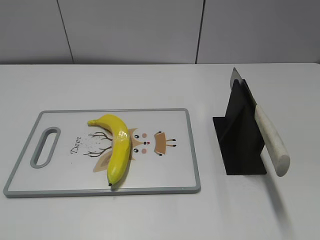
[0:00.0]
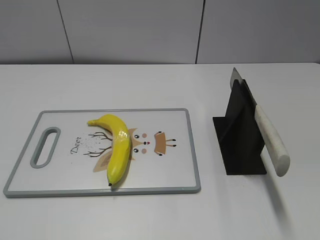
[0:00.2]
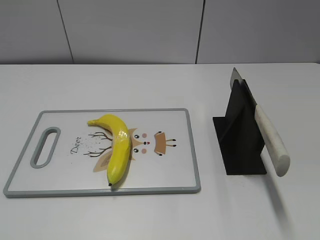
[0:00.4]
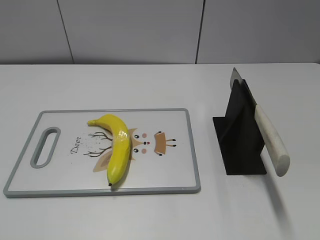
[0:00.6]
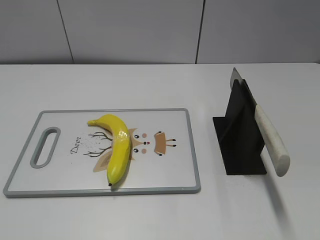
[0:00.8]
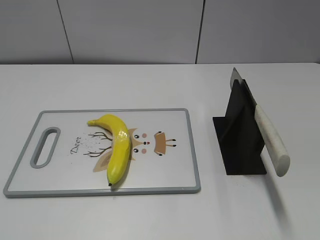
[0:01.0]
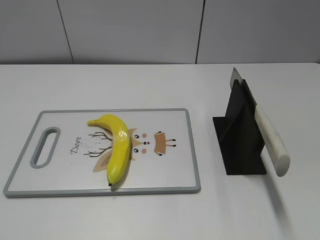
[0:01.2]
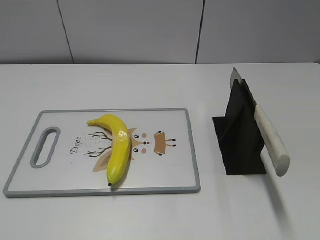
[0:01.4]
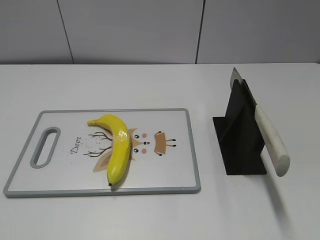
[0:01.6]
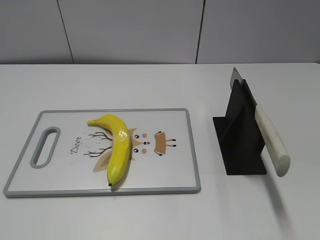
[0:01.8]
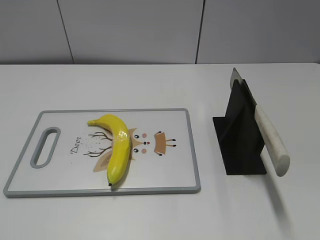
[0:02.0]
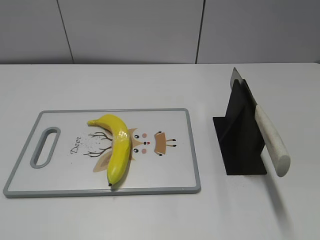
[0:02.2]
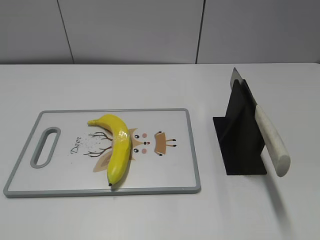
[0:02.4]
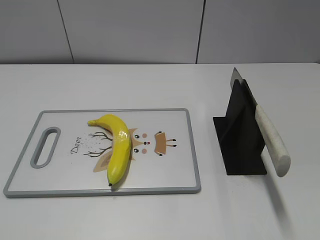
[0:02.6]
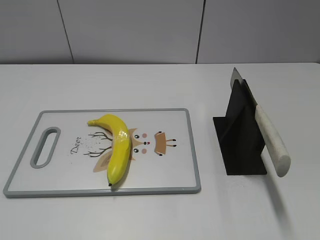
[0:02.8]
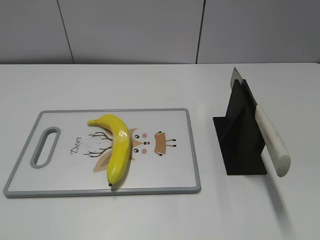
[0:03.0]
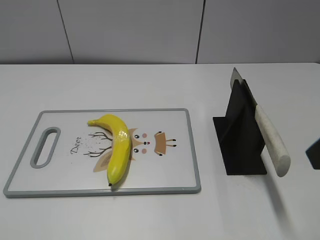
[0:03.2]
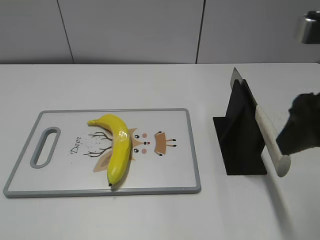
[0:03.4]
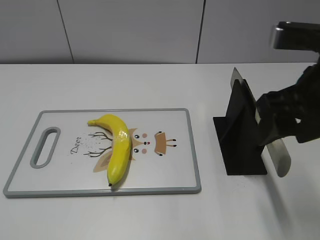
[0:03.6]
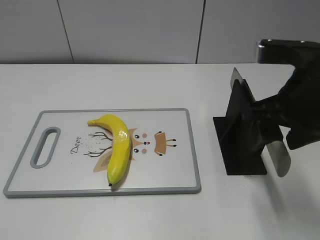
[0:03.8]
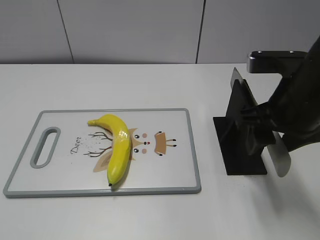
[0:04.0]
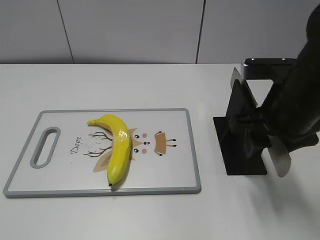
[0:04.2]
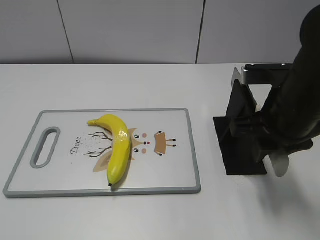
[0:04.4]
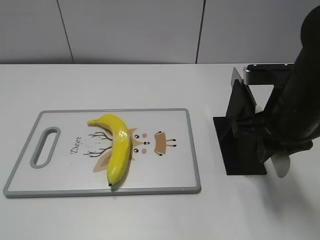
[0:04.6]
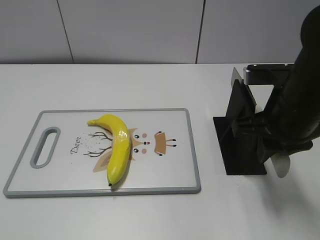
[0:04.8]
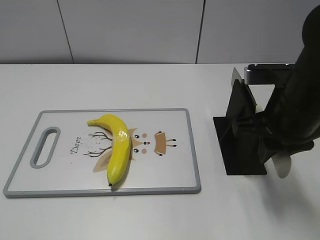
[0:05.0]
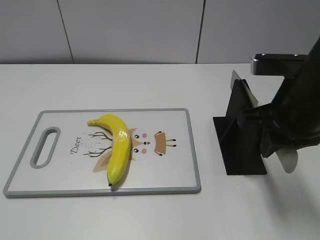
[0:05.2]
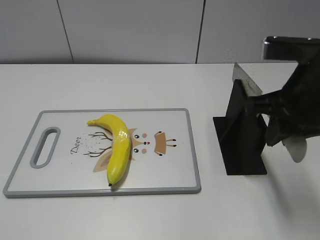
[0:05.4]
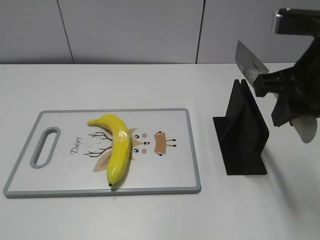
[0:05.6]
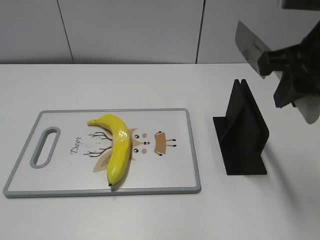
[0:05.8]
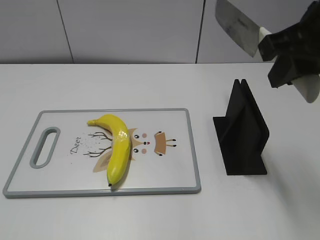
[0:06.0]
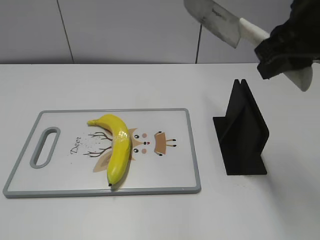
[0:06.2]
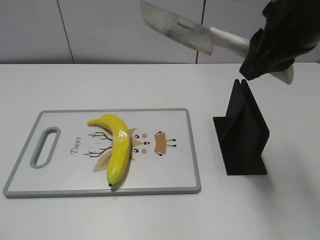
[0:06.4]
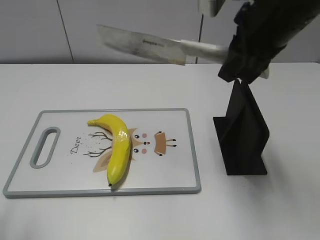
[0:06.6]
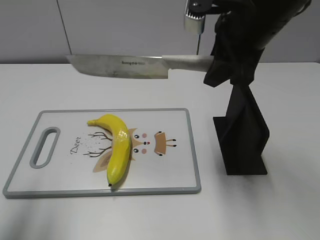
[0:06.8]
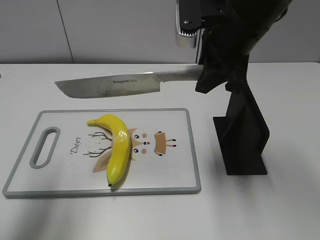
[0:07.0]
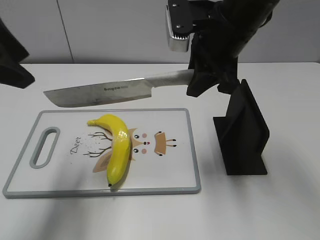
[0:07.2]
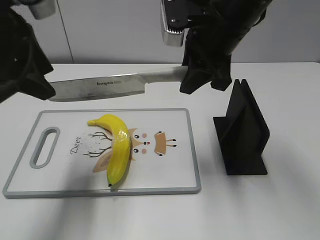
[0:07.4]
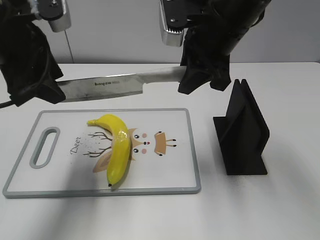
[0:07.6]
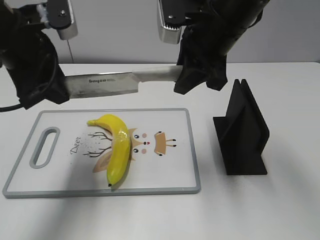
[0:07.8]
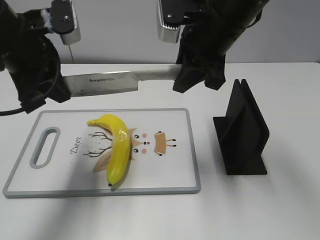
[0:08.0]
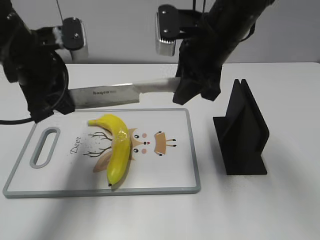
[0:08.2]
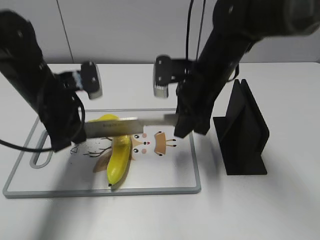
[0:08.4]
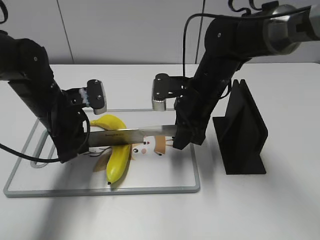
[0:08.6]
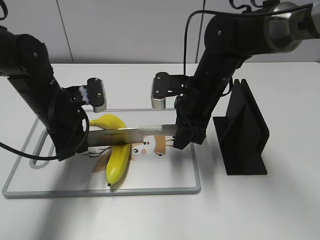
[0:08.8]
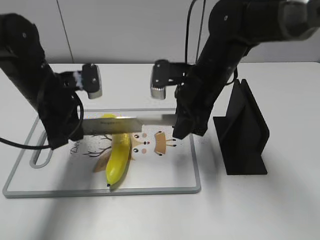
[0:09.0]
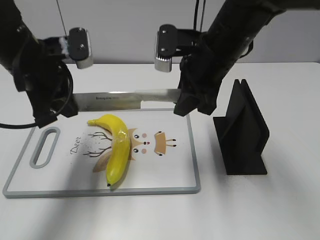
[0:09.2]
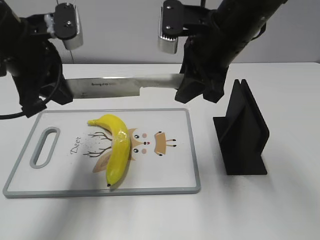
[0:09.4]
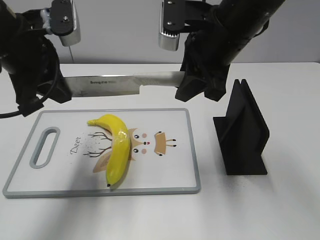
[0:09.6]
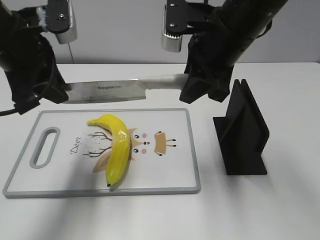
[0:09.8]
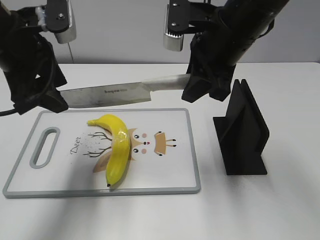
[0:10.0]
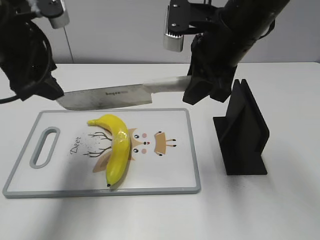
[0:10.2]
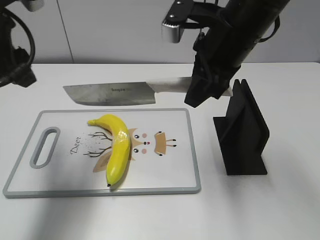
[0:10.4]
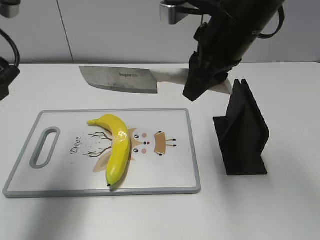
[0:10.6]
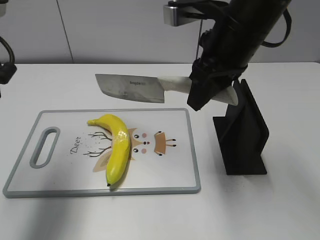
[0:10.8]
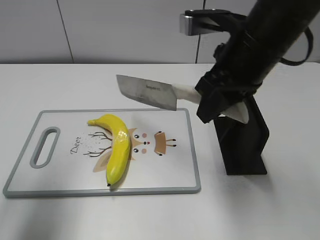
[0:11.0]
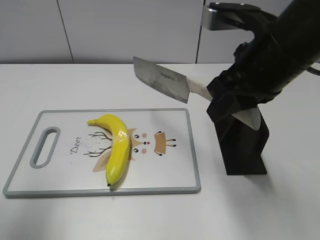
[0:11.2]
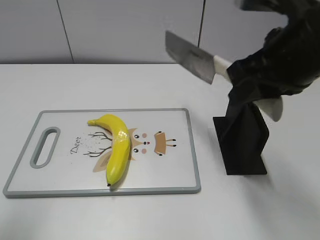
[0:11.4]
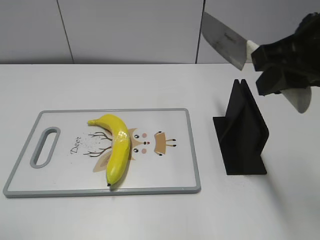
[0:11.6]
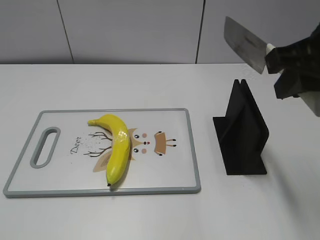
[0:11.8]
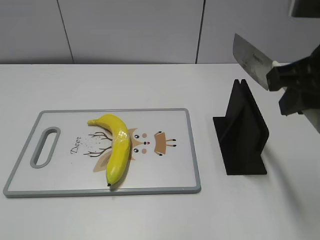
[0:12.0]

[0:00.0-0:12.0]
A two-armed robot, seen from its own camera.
Task of the whole recording: cut plastic banana.
Step, 0:00.0 to 0:06.2: Grab the knife handle with your right hand.
Step, 0:06.4 to 0:09.8: Lift the knife with your right hand.
Step, 0:10.0 to 0:10.8: Cut the banana with your right hand.
0:03.0 to 0:04.4: The right gripper is displaced forward, downward and to the left by about 20 cm, and closes its fingers.
0:04.4 to 0:06.0: The right gripper travels upward by about 10 cm.
0:06.0 to 0:07.6: The right gripper moves forward, to the left and downward, roughly 15 cm; the left gripper heads forward and to the right, covering roughly 30 cm.
0:07.6 to 0:09.0: The grippers both shift downward by roughly 10 cm. The left gripper closes its fingers.
0:09.0 to 0:10.4: Both grippers move upward, some 10 cm. The left gripper opens.
0:10.4 to 0:12.0: The left gripper is displaced backward by some 25 cm. The right gripper shifts about 15 cm backward and to the right.

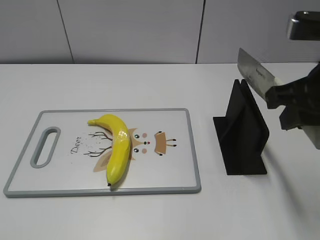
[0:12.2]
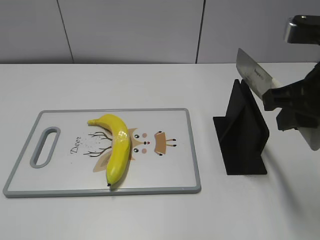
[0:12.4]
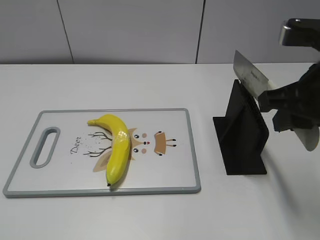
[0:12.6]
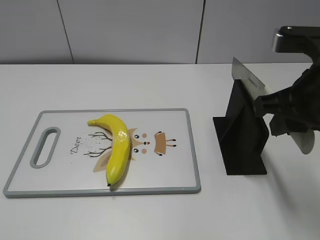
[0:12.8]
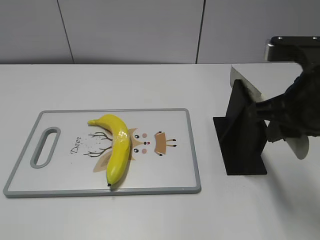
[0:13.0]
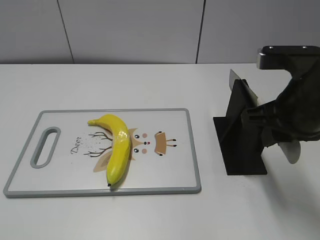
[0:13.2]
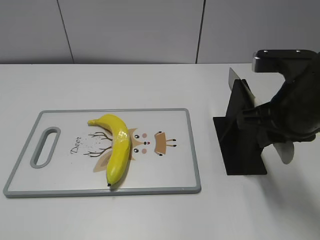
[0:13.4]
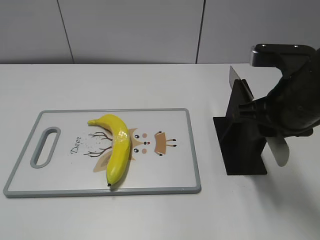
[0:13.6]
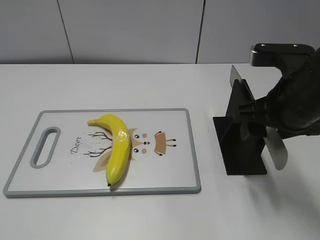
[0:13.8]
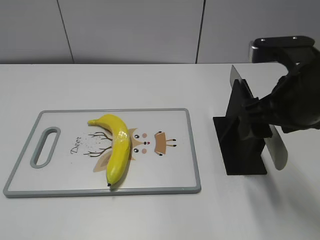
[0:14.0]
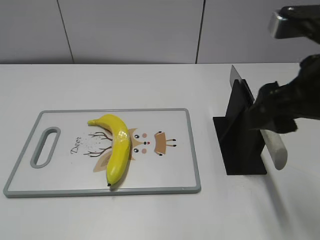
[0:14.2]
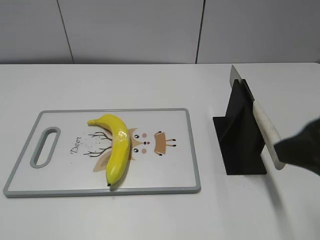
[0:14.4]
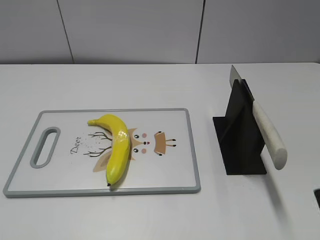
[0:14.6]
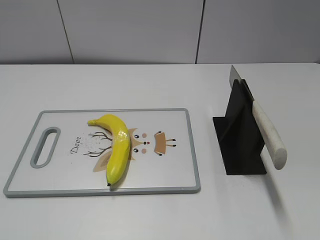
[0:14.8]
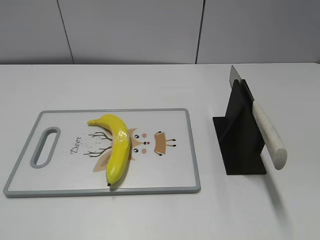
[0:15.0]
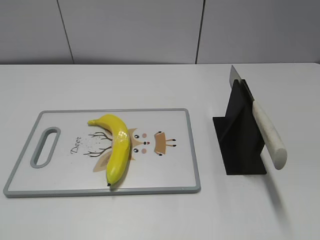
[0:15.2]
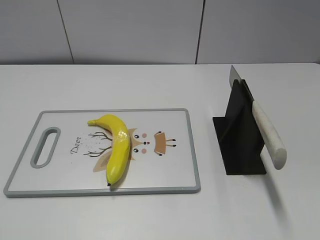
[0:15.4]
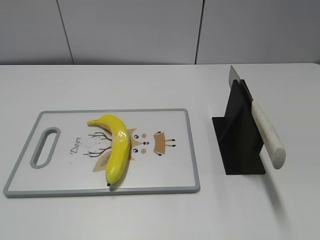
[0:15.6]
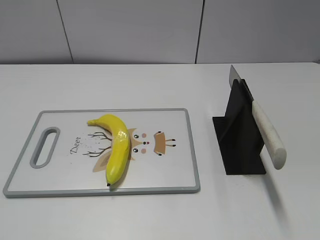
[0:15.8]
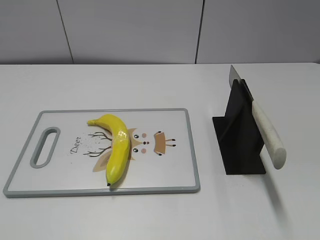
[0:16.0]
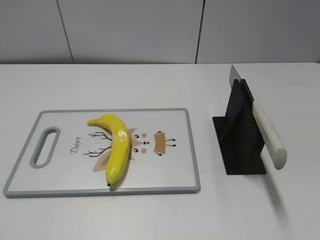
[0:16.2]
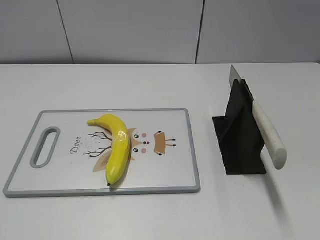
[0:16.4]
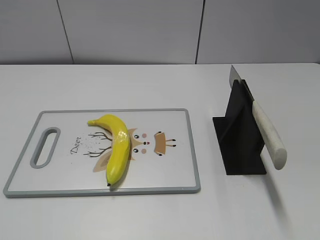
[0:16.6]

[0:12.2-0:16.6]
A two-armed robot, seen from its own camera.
Task of the whole recording: cut plastic banana.
Step, 0:12.4 to 0:16.6: Place the knife on the storage rack with your right hand.
0:12.2 to 0:13.6: The right gripper shifts approximately 5 cm downward.
0:13.6 to 0:15.2: The right gripper travels backward and to the right by about 25 cm, and opens up.
